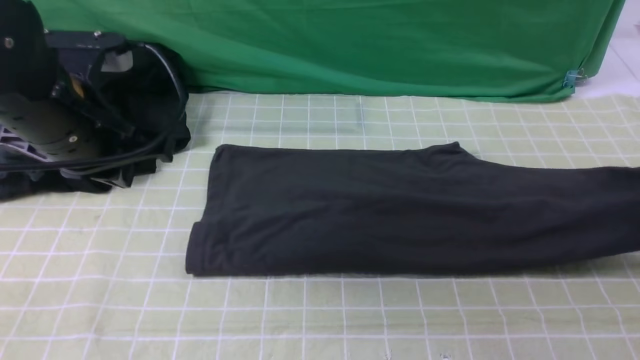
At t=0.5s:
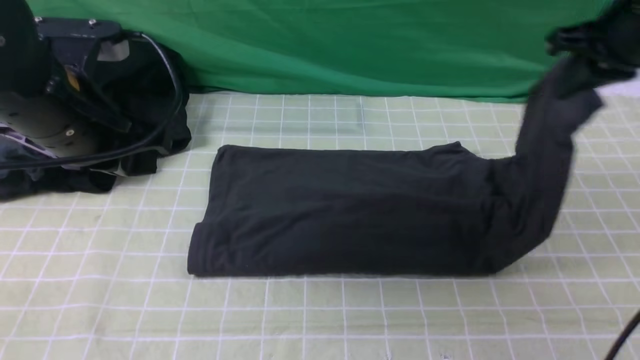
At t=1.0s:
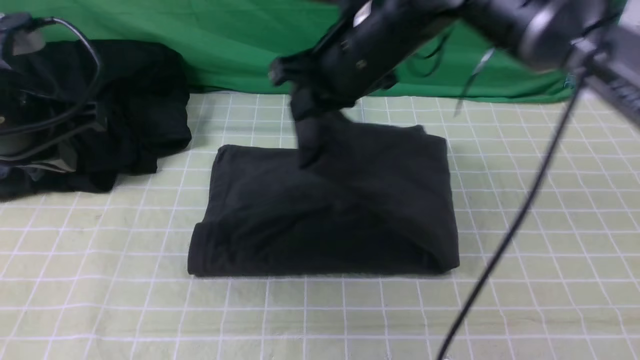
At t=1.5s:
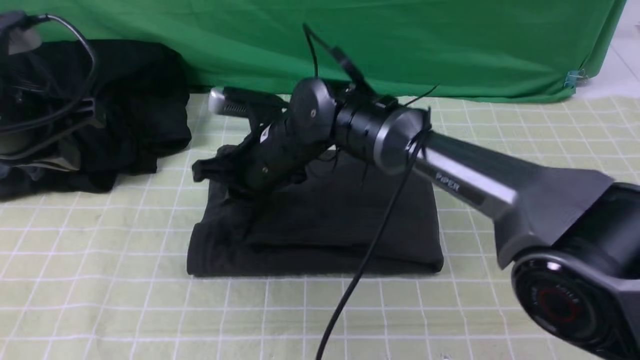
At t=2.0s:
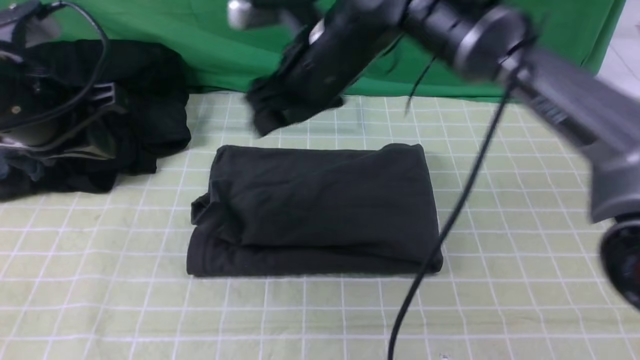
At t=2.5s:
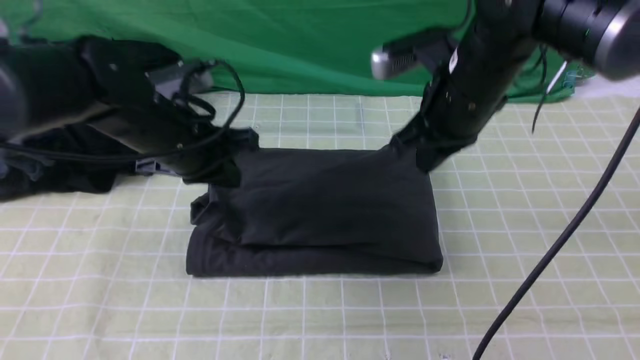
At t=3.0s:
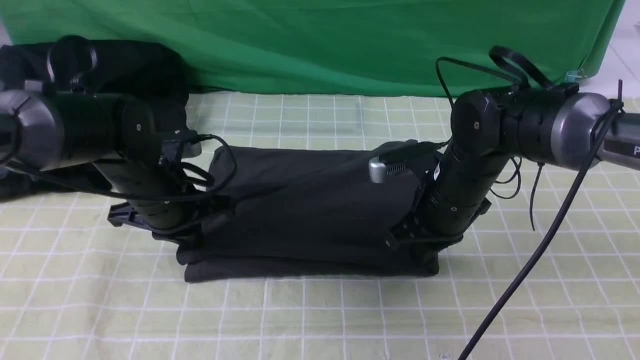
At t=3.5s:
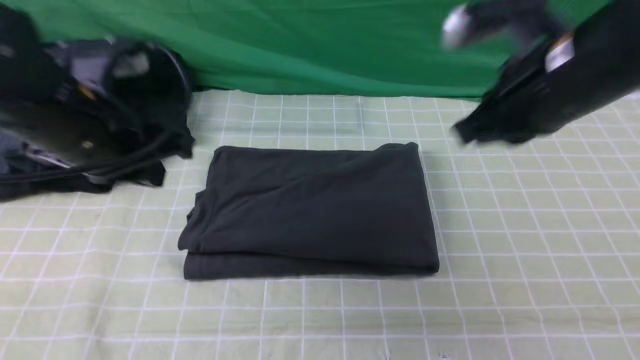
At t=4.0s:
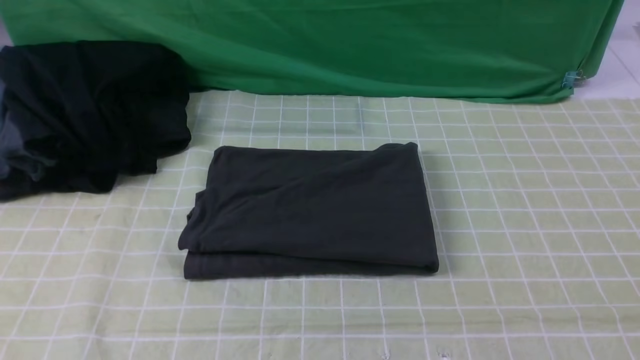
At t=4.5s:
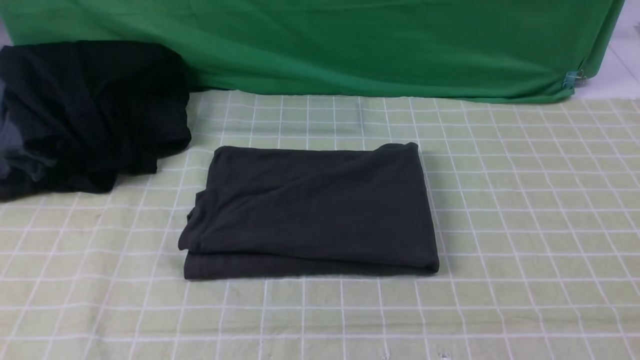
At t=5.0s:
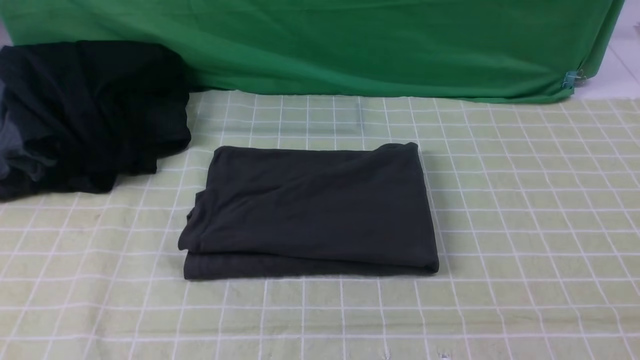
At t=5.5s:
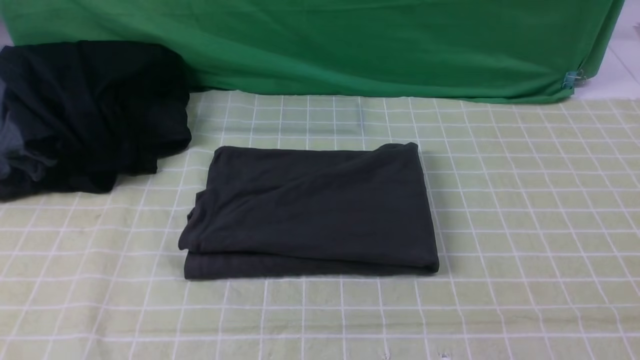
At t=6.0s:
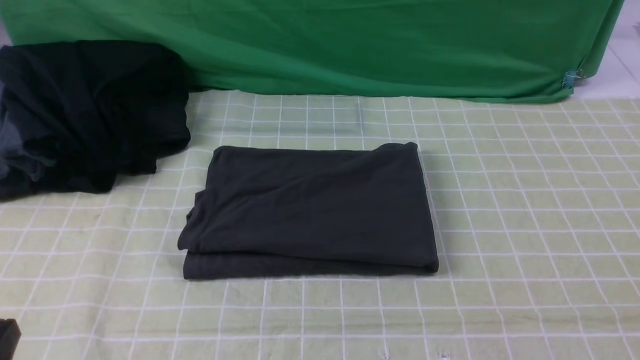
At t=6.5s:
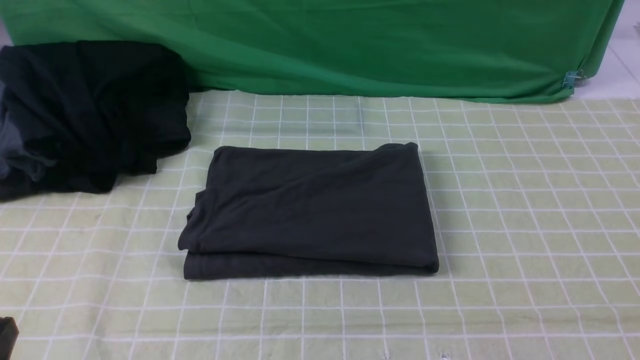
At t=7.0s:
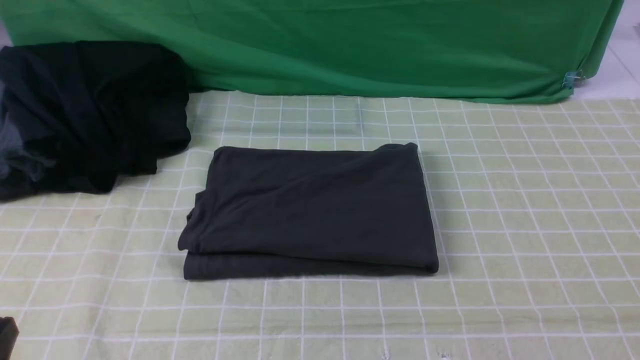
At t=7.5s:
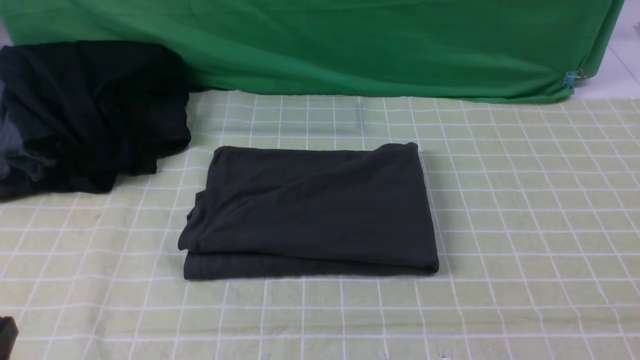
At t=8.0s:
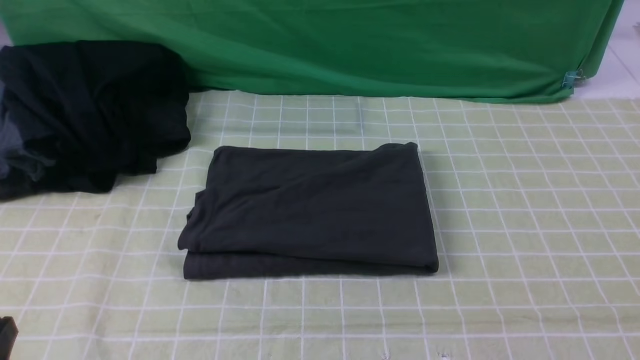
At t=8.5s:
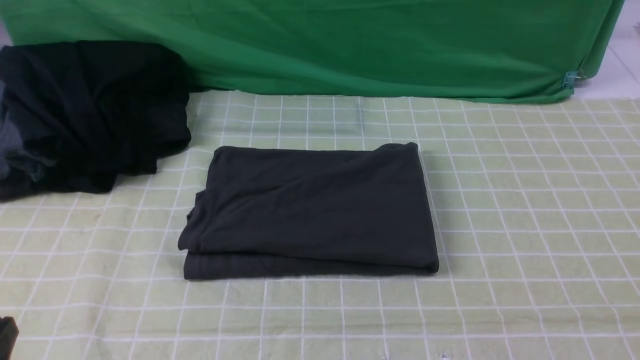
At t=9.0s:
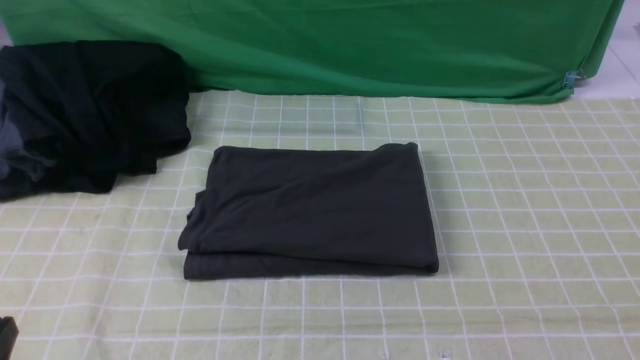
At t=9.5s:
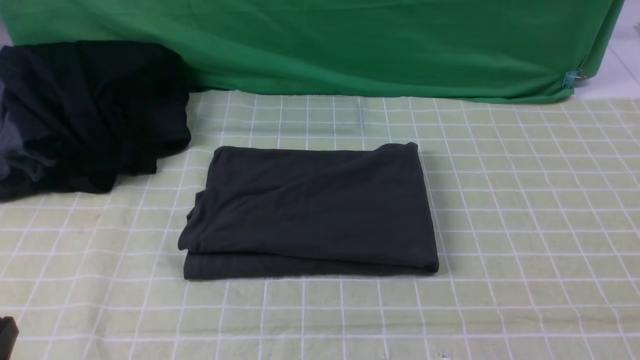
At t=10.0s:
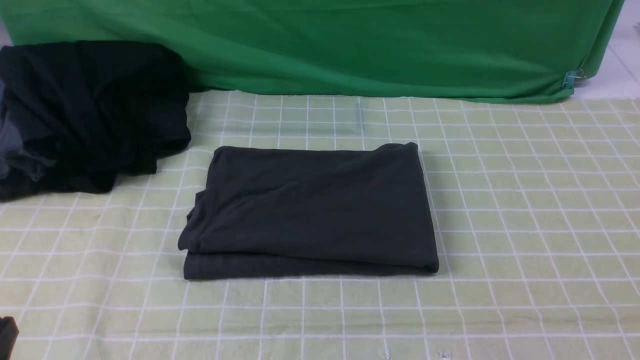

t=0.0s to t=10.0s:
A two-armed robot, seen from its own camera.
Step, t=0.0s to t=1.5s: use the right arm to drag the right edge of the fabric to the left and folds it over the left edge.
t=0.0s to t=2.0s: The right gripper travels to the left by some 40 cm, and opens.
t=2.0s to t=4.0s: The left gripper is displaced backward by approximately 25 cm. The right gripper travels backward and to the right by about 40 cm, and closes up.
t=8.0s to t=10.0s: Both grippers stay about where they are.

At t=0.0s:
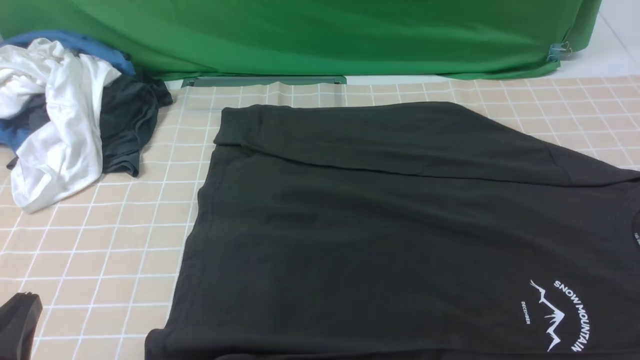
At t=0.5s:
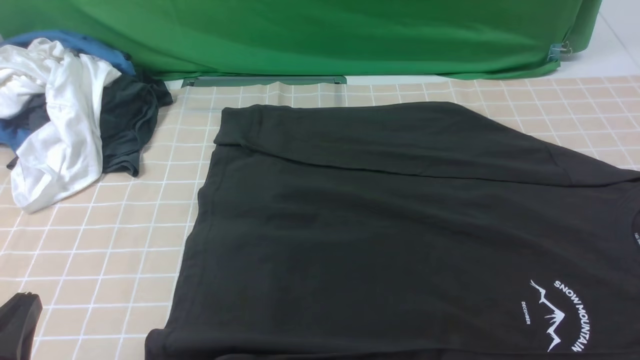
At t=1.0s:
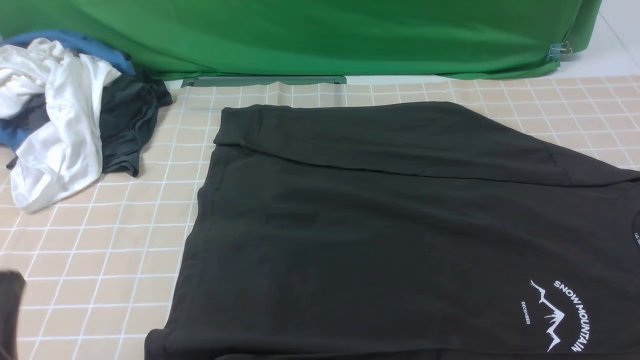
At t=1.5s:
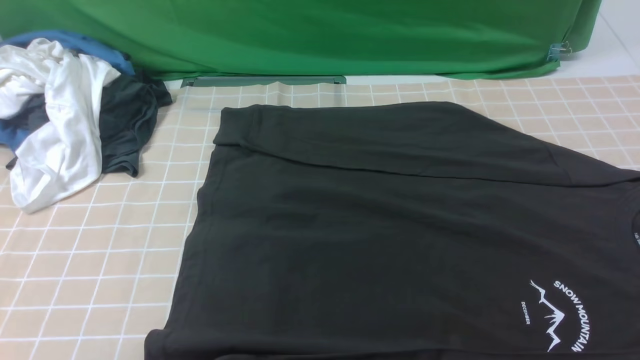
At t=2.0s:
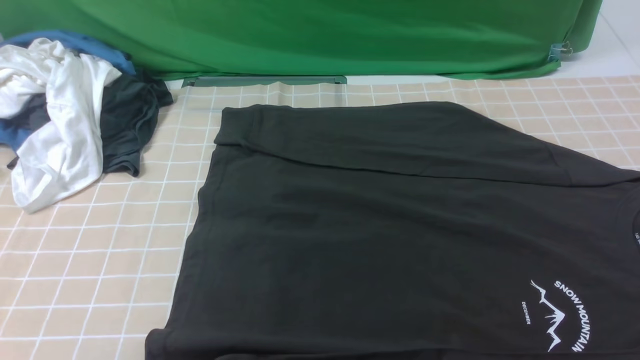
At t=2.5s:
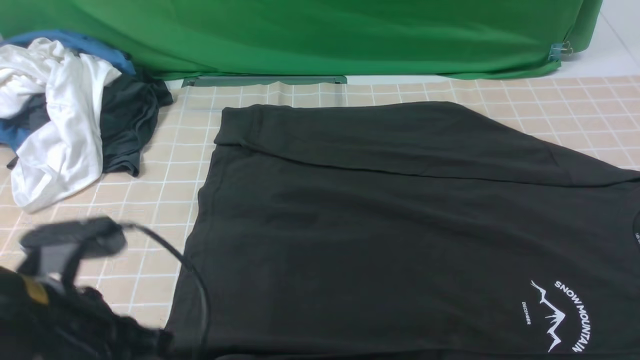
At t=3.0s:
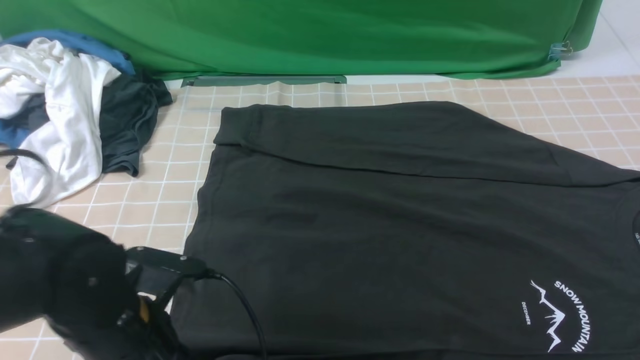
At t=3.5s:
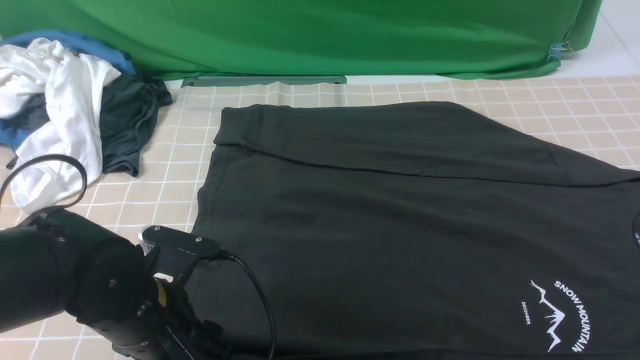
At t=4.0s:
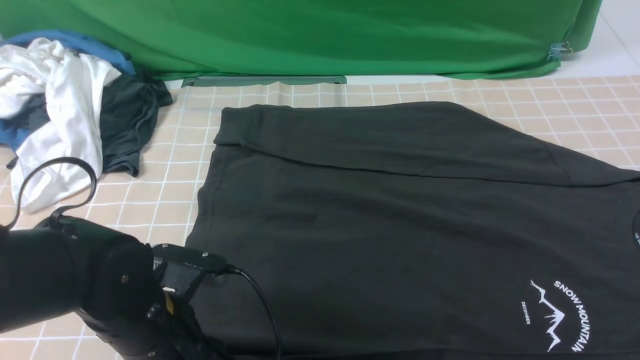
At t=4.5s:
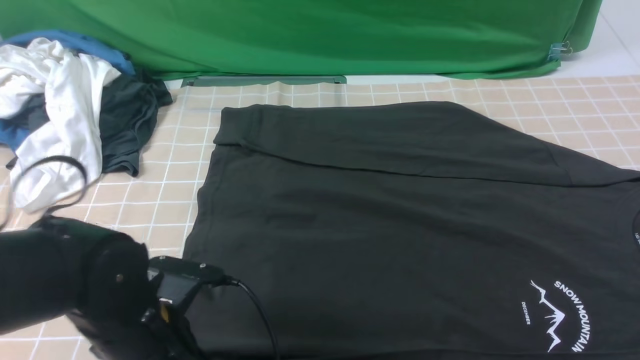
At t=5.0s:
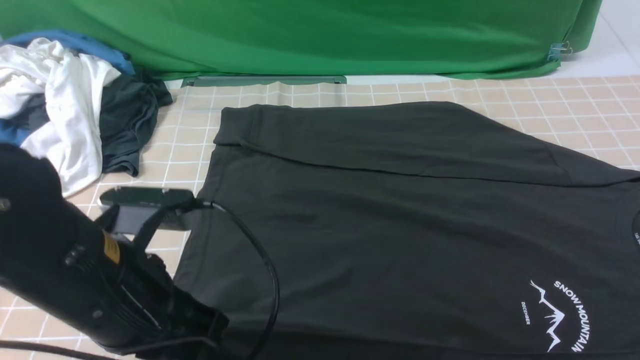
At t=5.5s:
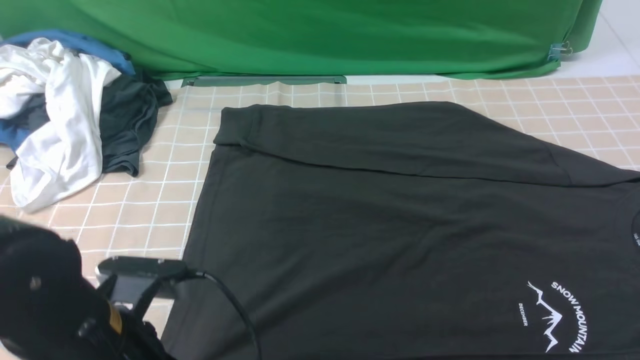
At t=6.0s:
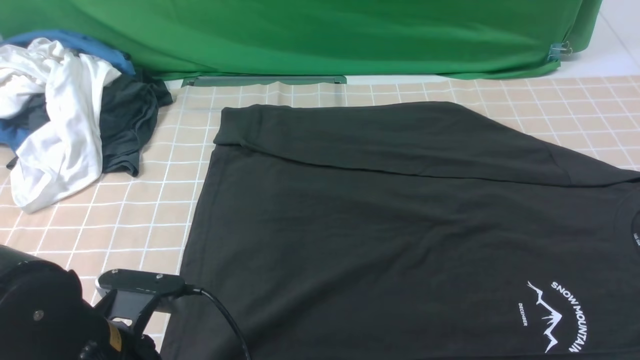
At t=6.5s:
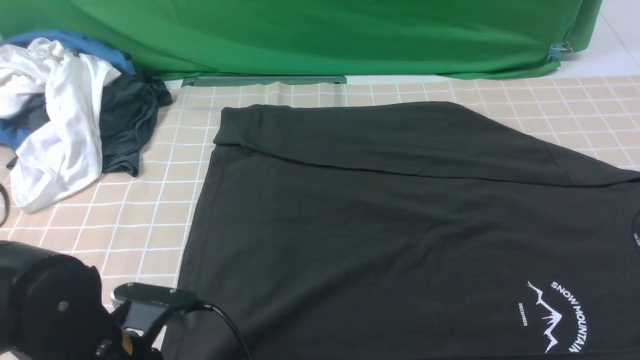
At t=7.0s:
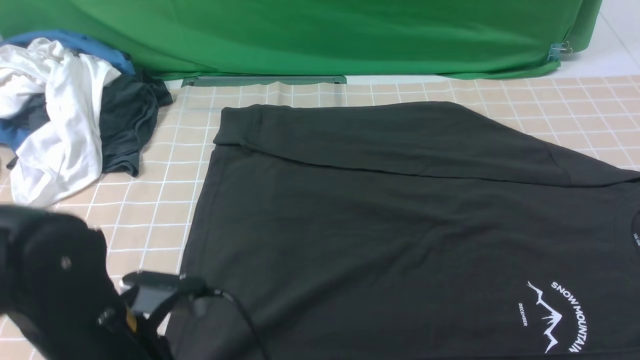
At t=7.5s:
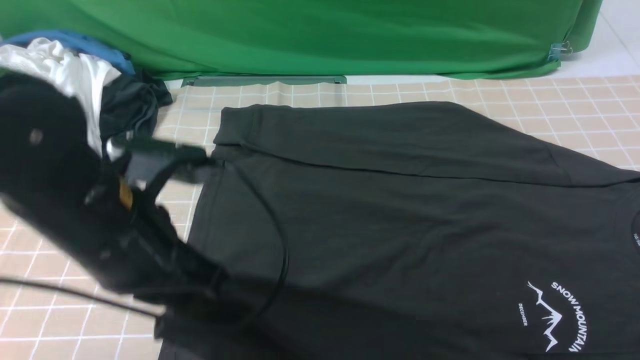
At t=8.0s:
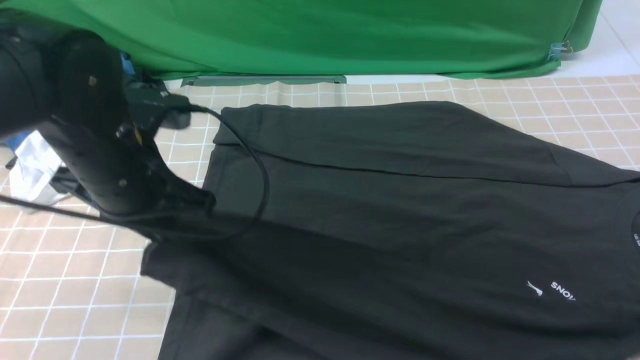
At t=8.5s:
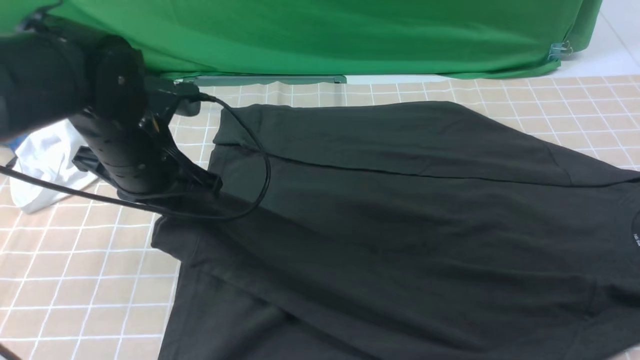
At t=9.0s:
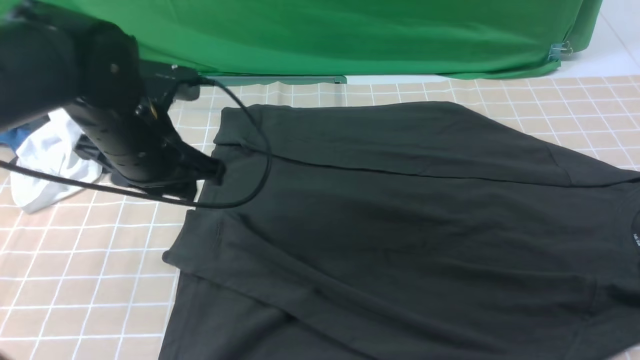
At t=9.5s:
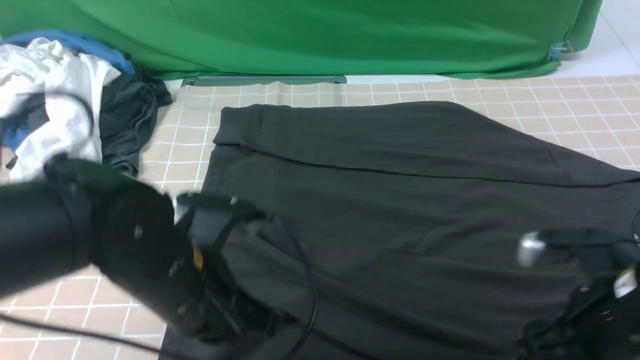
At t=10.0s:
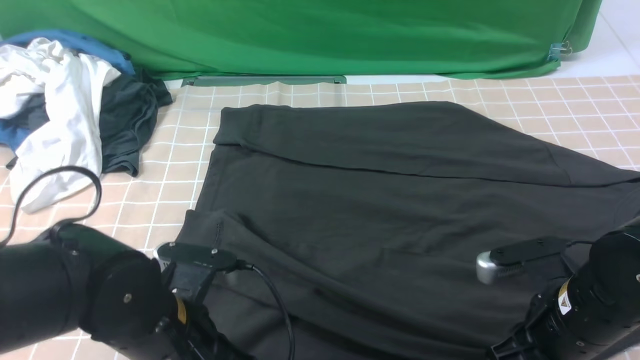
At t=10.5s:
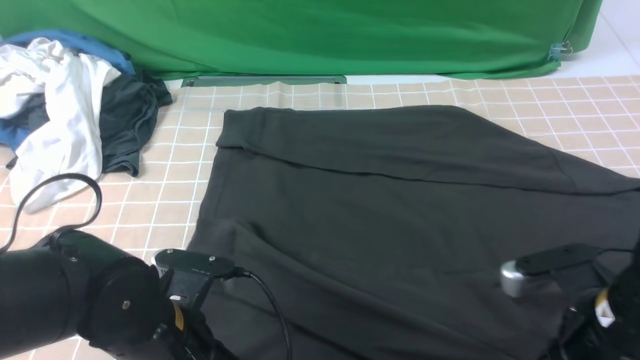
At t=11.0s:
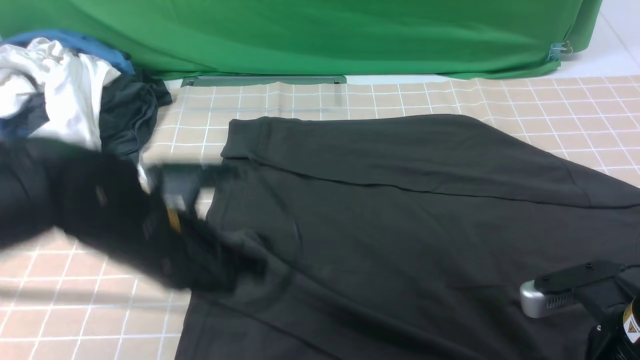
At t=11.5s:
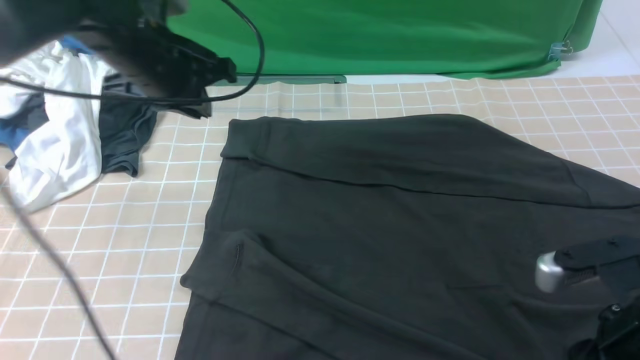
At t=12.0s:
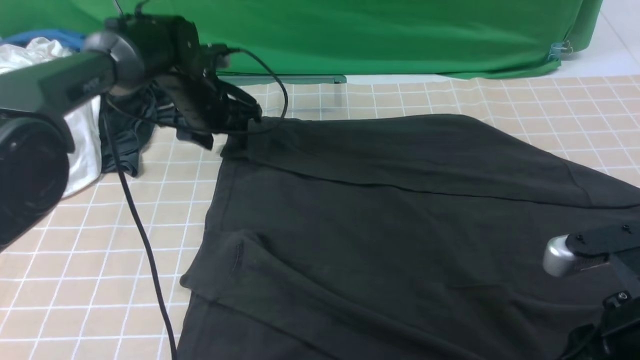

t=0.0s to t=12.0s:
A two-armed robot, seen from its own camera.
Step, t=0.0s to t=7.0s: use the left arm to clamp the cuff closest to it.
Step, t=7.5s to t=8.5s: use the left arm to drag and place the cuff at the centered position on the left edge of the fabric.
t=0.0s to t=2.0s: The left gripper is displaced upward by about 15 cm.
t=2.0s to t=4.0s: The left gripper shifts roughly 20 cm downward and to the right, and opens its fingers.
t=4.0s to t=6.0s: The left gripper closes, then reopens.
t=6.0s to t=8.0s: The left gripper goes approximately 15 cm forward and upward, and closes up.
t=8.0s to t=10.0s: The right gripper goes roughly 20 cm downward, to the left and forward, and opens and closes again. The left gripper goes about 15 cm downward and backward, and opens and closes again.
t=10.0s to t=12.0s: The left gripper shifts approximately 30 cm forward, and opens its fingers, while the right gripper travels upward by approximately 10 cm, and closes and opens again.
